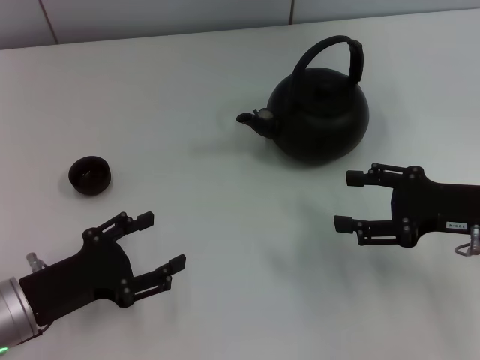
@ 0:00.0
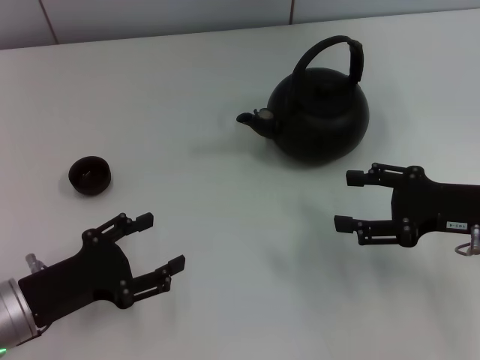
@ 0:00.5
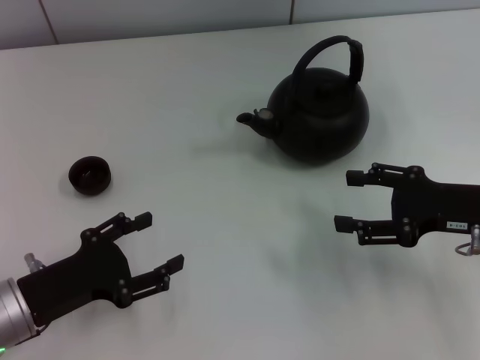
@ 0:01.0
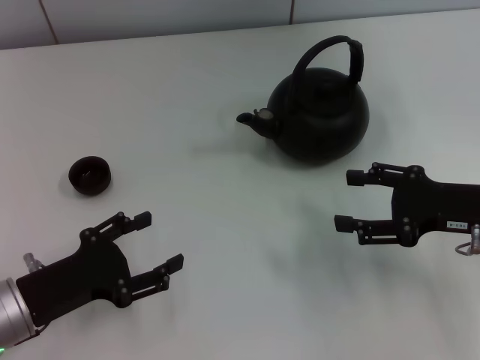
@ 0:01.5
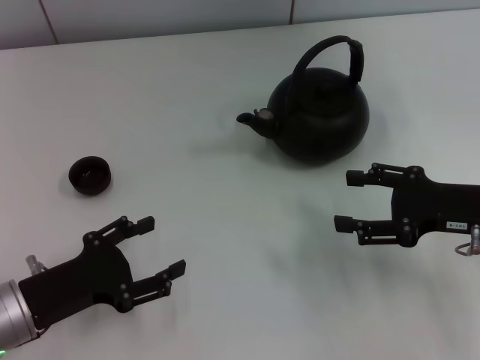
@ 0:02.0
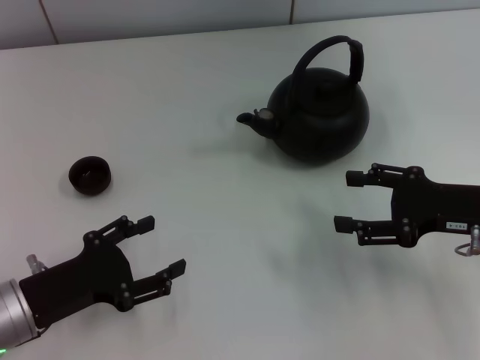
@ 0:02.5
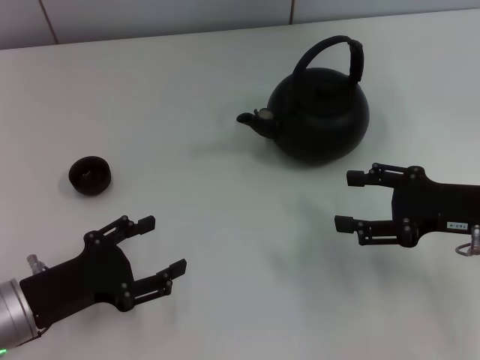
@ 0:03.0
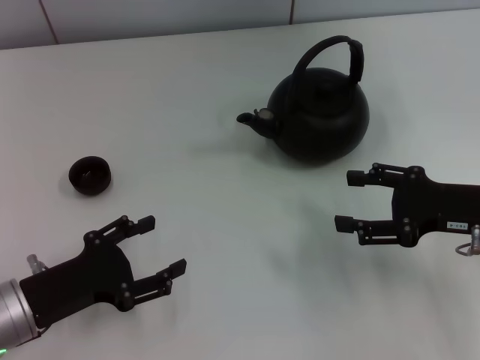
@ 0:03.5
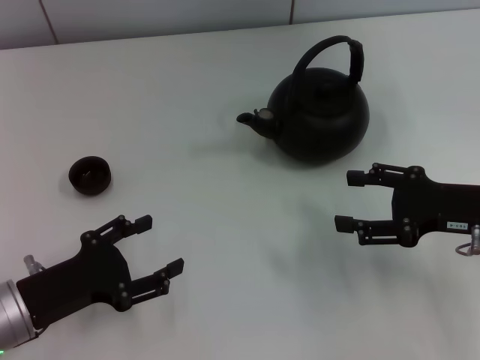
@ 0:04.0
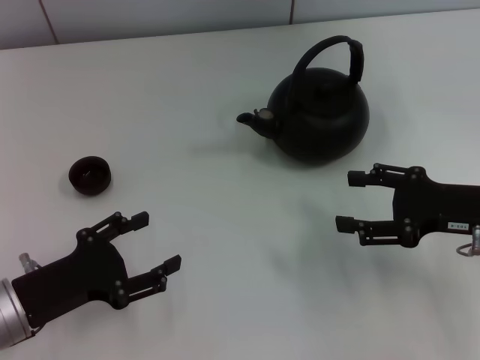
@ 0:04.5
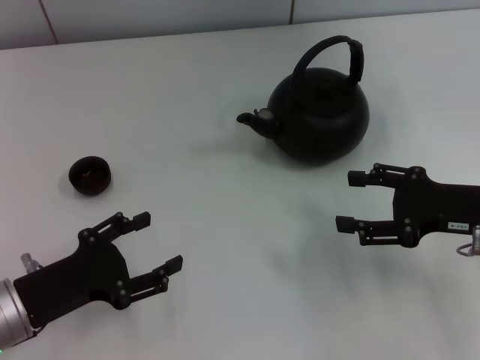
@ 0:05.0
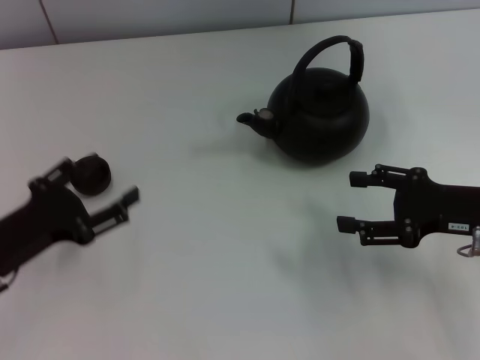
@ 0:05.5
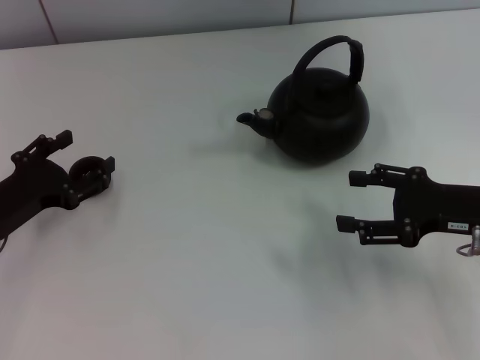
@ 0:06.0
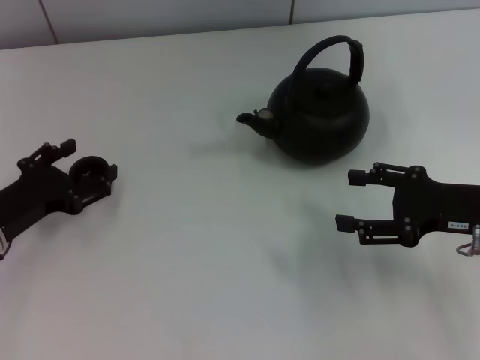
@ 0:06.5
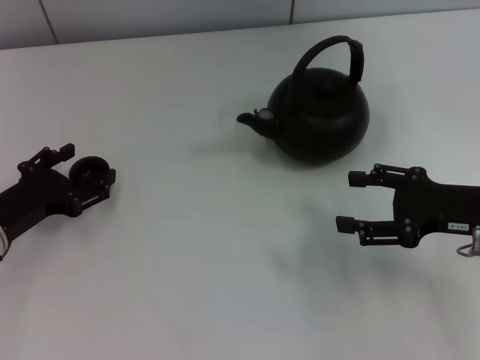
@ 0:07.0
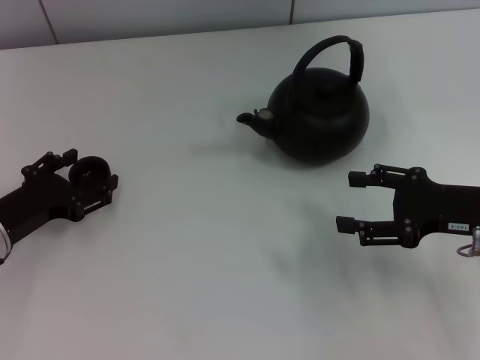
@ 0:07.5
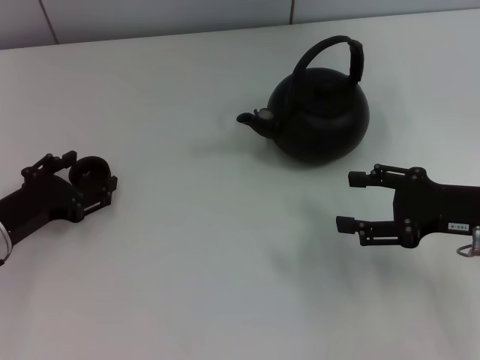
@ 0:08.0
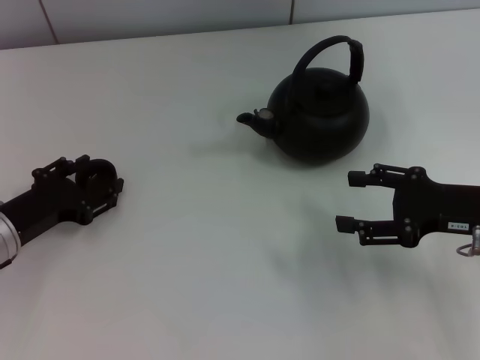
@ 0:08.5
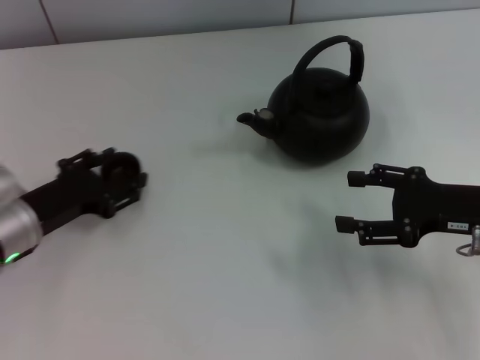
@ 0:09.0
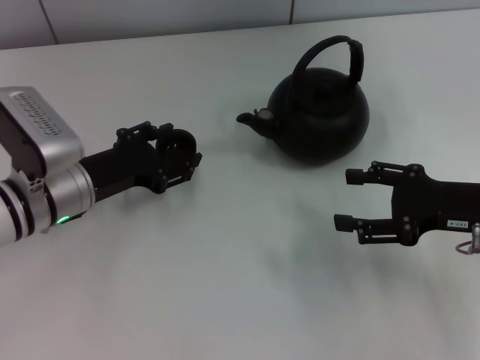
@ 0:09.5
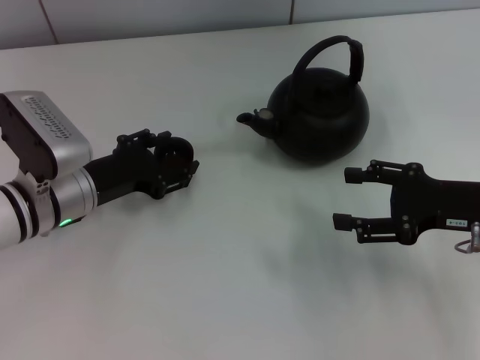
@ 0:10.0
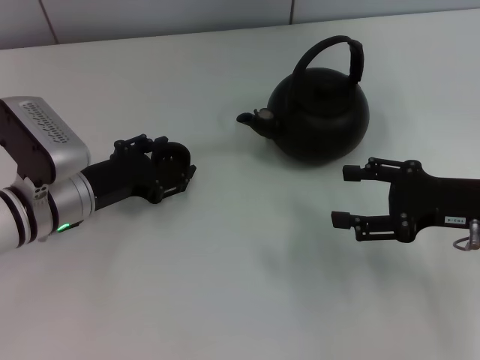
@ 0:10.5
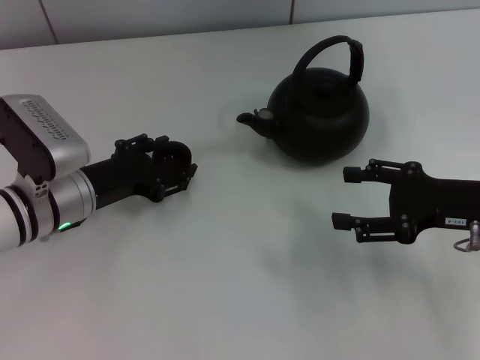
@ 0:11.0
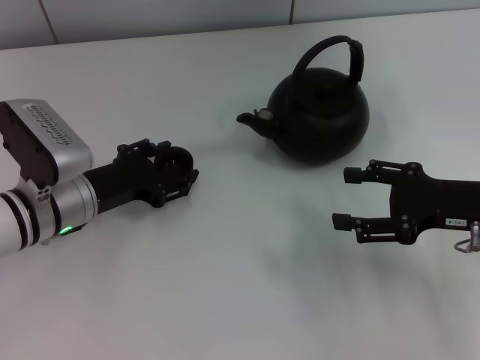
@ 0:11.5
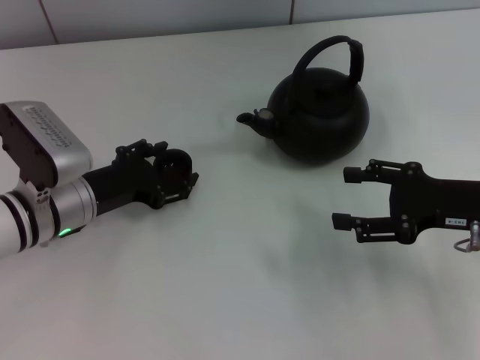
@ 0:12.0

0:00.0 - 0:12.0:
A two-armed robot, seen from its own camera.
Task of the whole recording: Grasp the handle of the teapot with one hand and pour tea into the teacup.
Step, 0:00.0 - 0:09.0: Pick up the teacup with the left gripper.
0:00.0 - 0:04.0: Both grippers stay put.
0:04.0 - 0:06.0: The left gripper is displaced forward by roughly 5 cm.
0:06.0 - 0:08.0: The grippers stay close to where they were, moving slightly.
0:08.0 - 0:10.0: The left gripper moves to the right, roughly 10 cm, and closes.
0:10.0 - 0:12.0: The left gripper opens up.

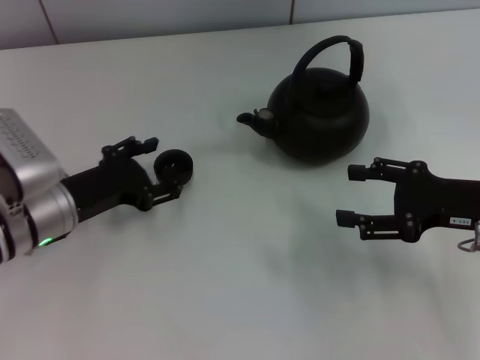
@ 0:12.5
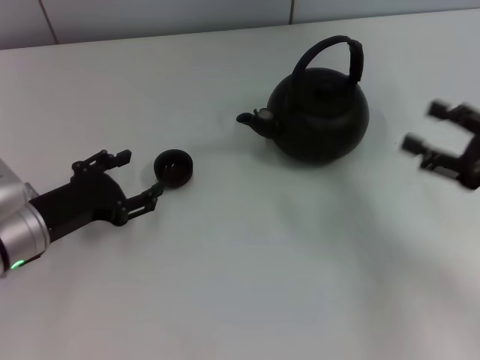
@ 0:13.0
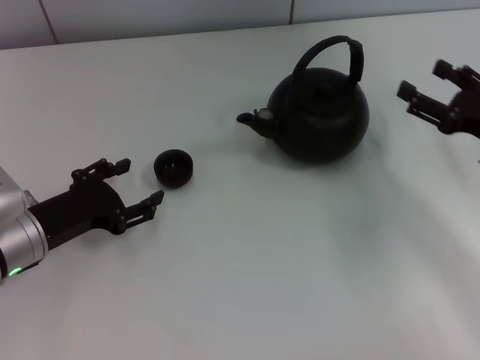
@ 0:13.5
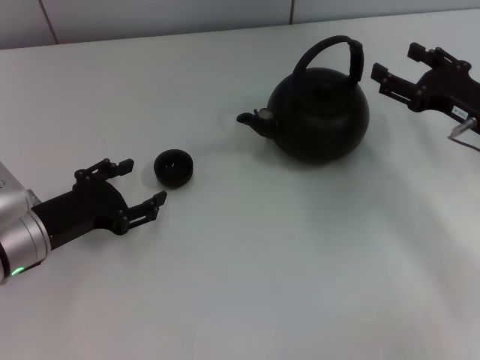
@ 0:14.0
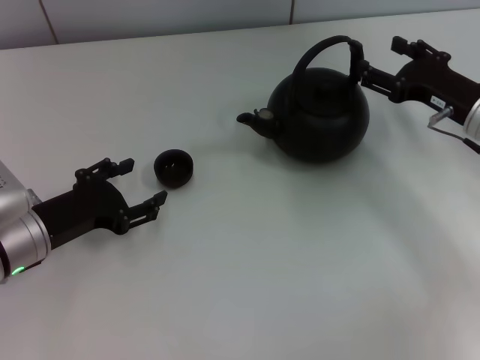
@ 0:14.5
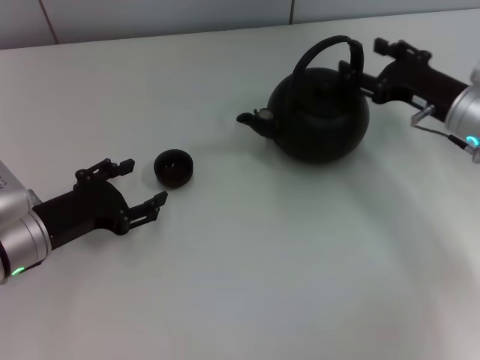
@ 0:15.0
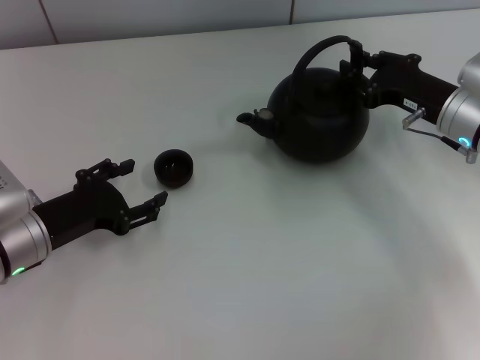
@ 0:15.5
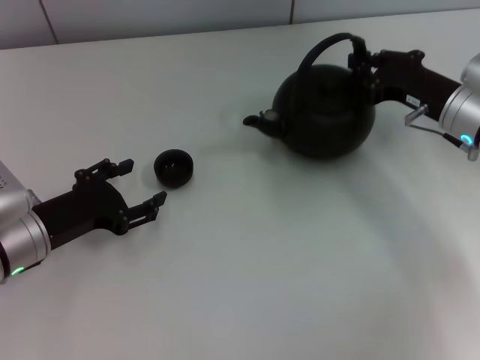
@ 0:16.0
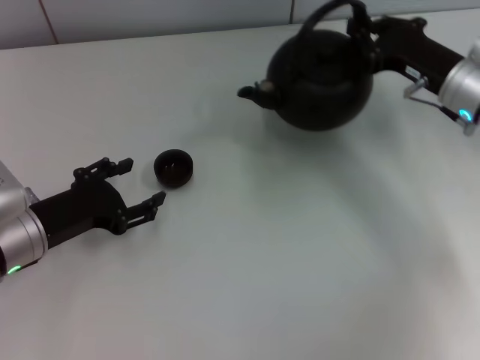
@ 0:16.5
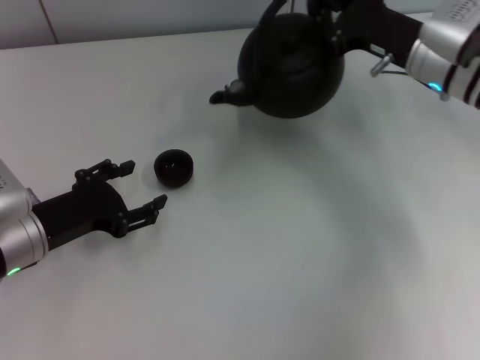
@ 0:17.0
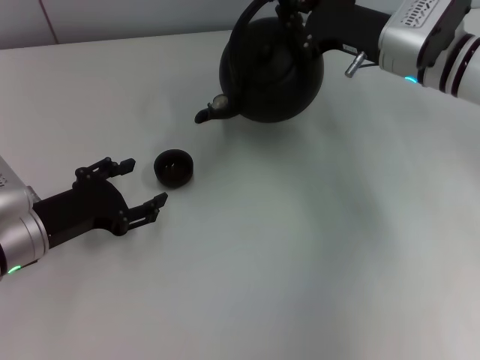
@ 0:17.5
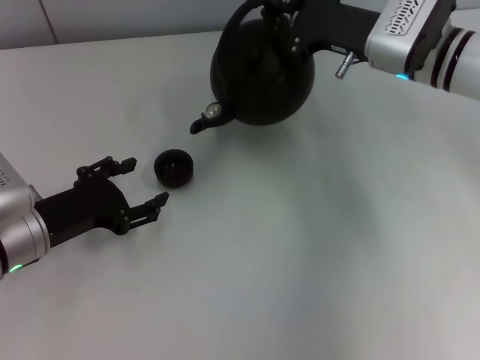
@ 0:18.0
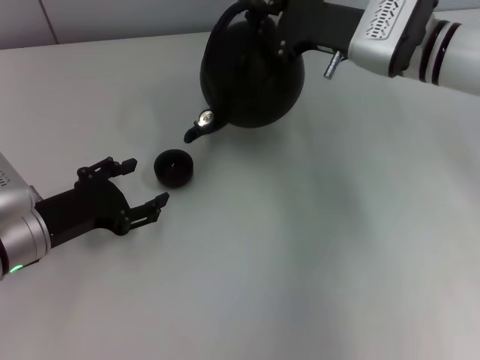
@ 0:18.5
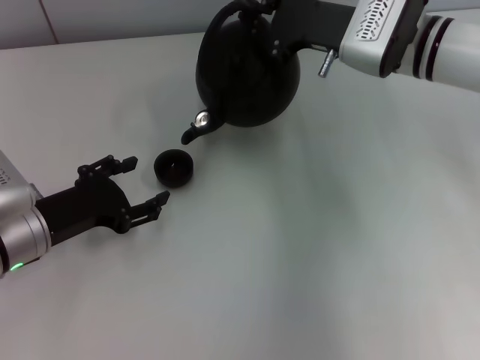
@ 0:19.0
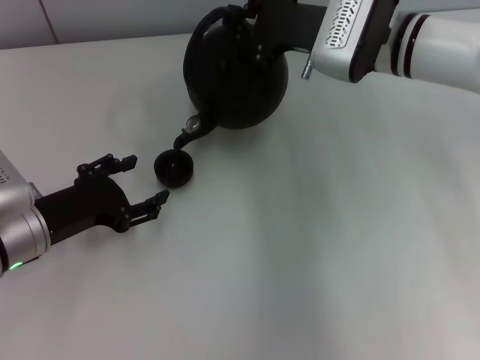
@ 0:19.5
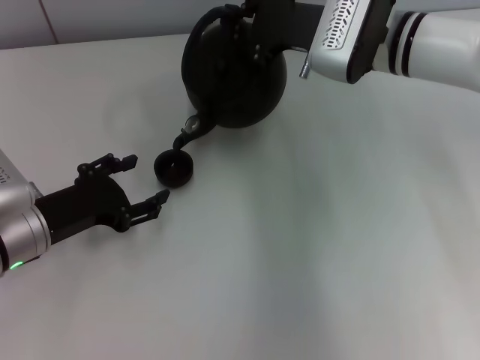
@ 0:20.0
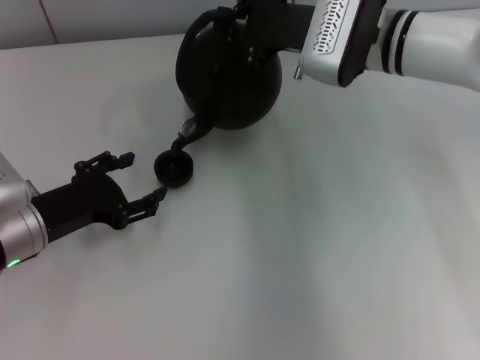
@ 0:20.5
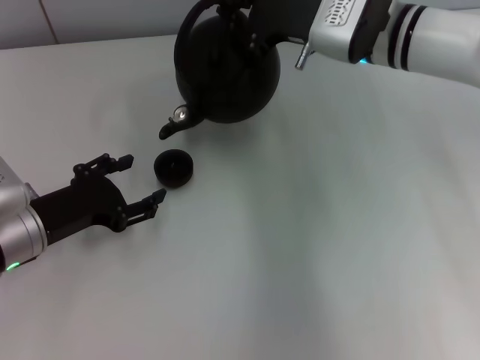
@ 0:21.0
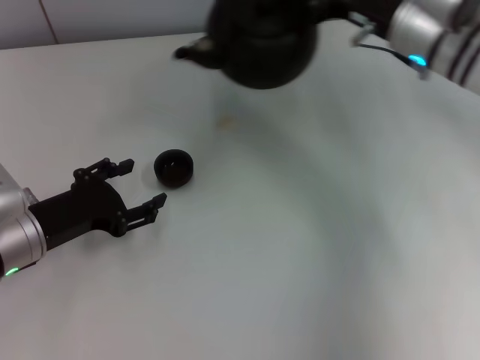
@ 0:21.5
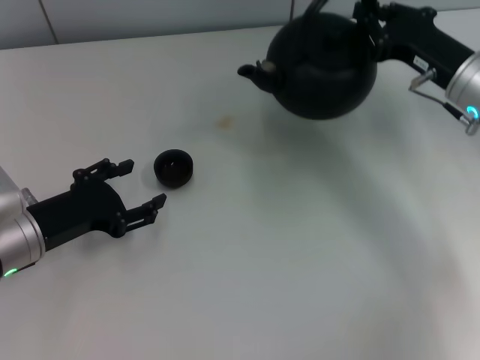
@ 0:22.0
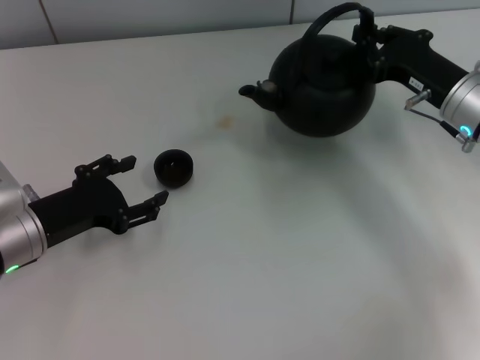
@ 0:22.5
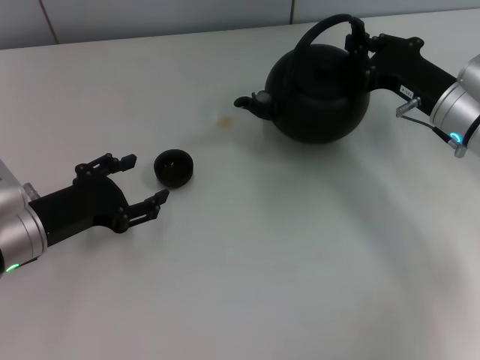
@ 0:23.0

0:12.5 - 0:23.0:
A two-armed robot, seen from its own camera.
Task of the whole recording: Grasp the handle of the teapot with one hand and pour tea into the teacup.
Step, 0:13.0 - 0:16.5: Pick up the teapot with the right gripper.
0:12.5 - 0:14.5: The right gripper travels forward by roughly 10 cm.
0:14.5 - 0:16.5: The right gripper closes its fingers.
0:16.5 - 0:19.0: The right gripper travels to the left by roughly 10 cm.
0:19.0 - 0:21.0: The grippers move only a little.
0:21.0 - 0:23.0: The right gripper shifts approximately 15 cm to the right, downward and backward.

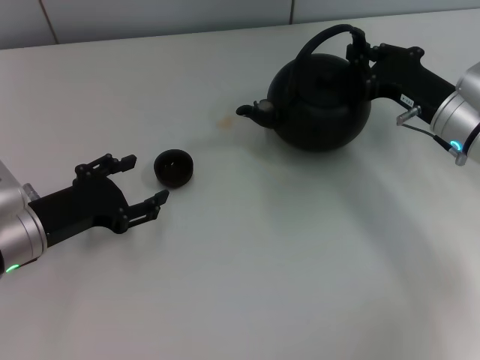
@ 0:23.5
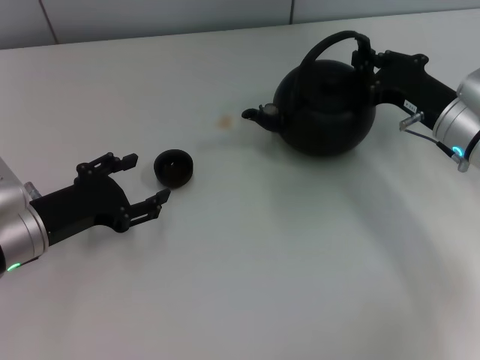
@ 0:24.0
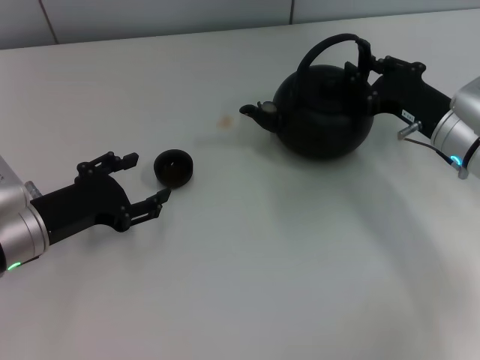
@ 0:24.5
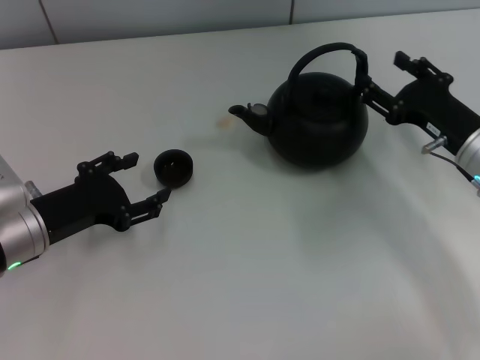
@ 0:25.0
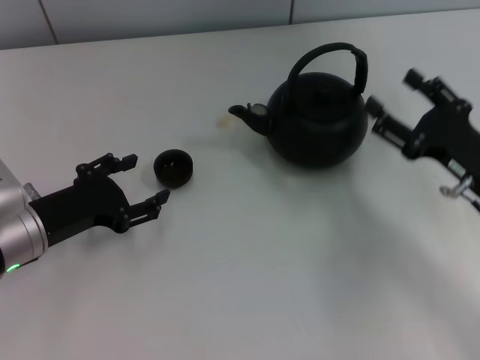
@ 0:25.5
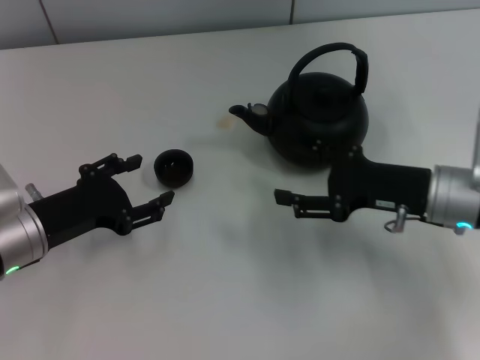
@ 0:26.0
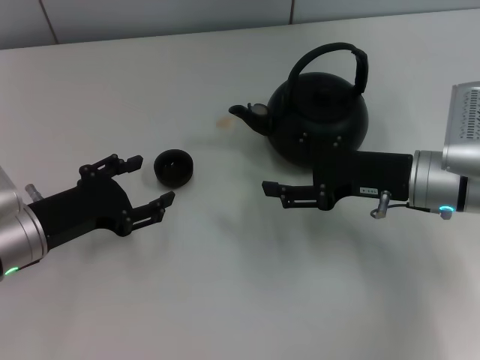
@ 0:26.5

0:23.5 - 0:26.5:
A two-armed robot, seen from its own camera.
Task of the whole recording: Grasp the handle of the teapot with one hand and pour tea into the teacup.
0:23.5 - 0:25.0: The right gripper opens up.
0:25.0 - 0:26.5: The right gripper moves to the left, roughly 5 cm.
